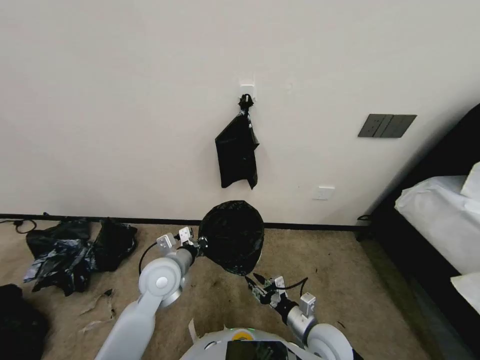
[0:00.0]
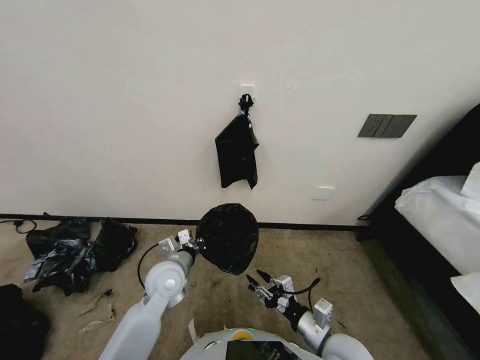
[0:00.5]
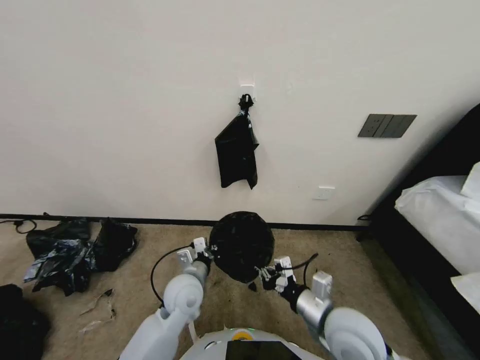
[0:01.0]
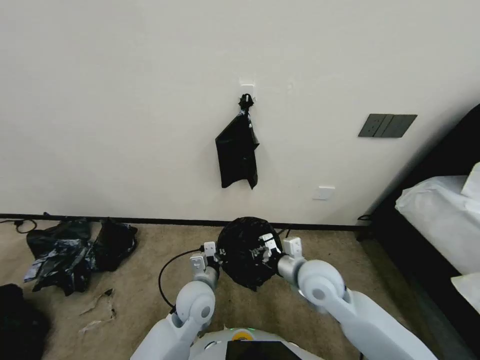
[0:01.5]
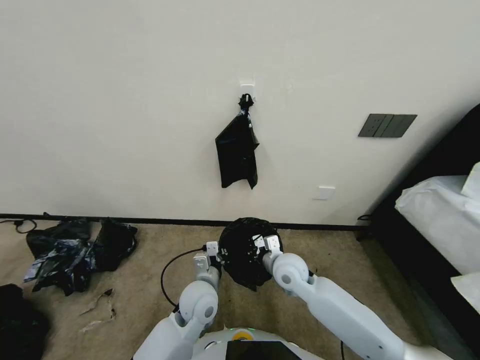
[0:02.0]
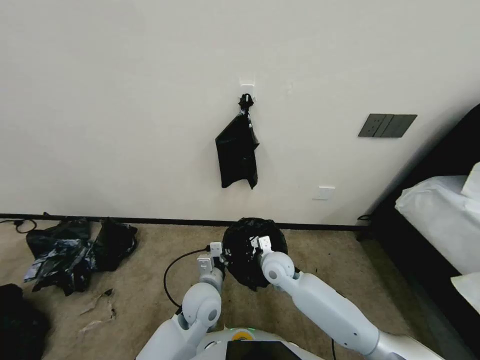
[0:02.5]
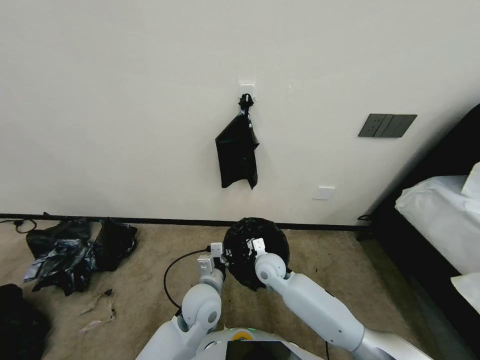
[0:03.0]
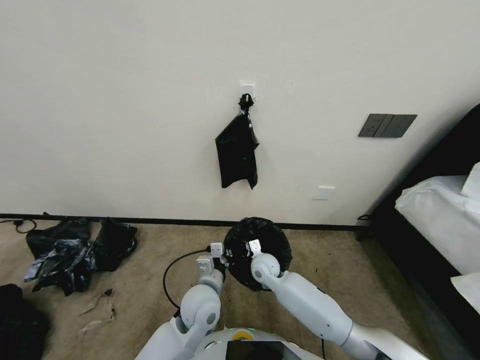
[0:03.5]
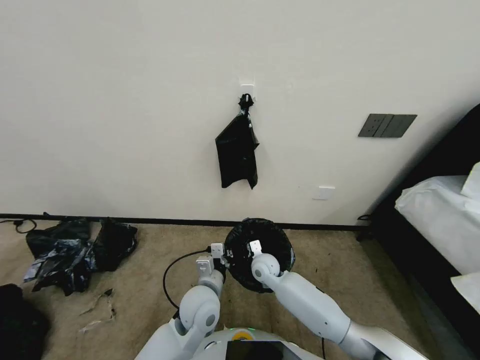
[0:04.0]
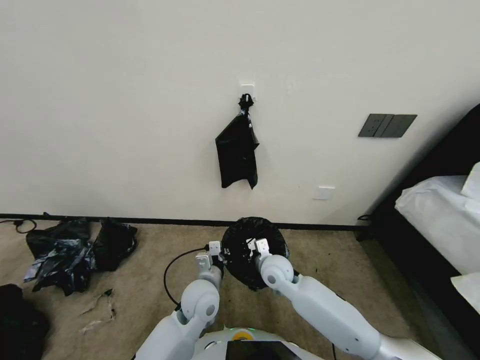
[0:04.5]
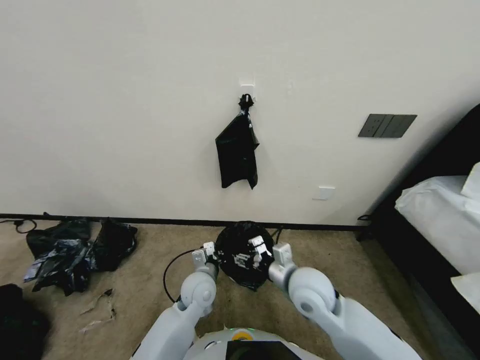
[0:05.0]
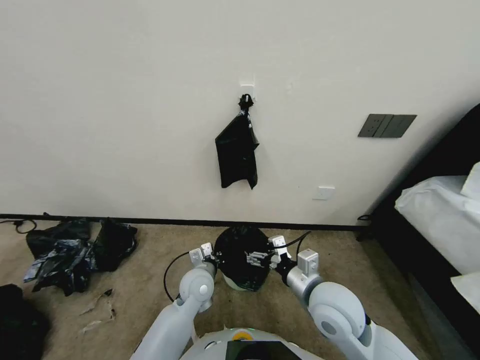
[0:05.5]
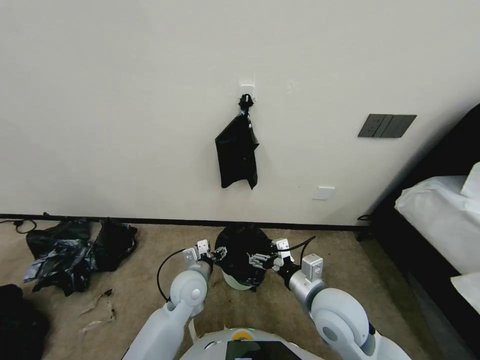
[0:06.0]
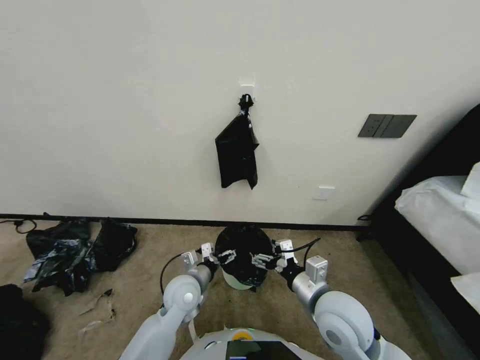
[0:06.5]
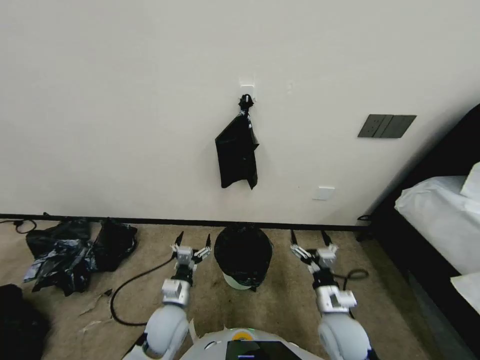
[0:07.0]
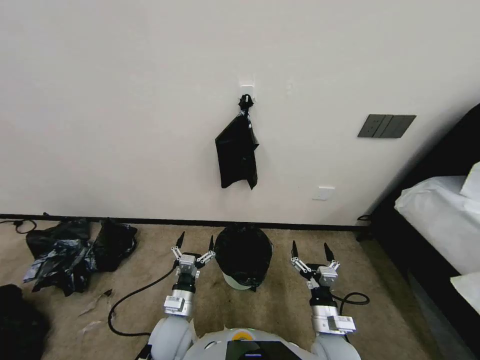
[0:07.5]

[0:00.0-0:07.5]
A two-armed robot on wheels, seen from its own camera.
Task of the whole recording: Place a trash bag onto the trash bin.
0:00.0 to 0:02.0: The left gripper shifts about 10 cm to the right and downward. Meanwhile the right gripper goes about 20 cm forward, upward and to the left.
0:02.0 to 0:04.0: The right gripper goes about 15 cm downward, forward and to the left.
0:04.0 to 0:05.5: The right gripper heads upward, backward and to the right, covering approximately 25 cm, and opens. Meanwhile the left gripper is displaced forward by about 5 cm.
0:05.5 to 0:07.5: The left gripper heads backward and to the left, covering approximately 15 cm, and opens up. The right gripper moves downward and backward, roughly 15 cm.
